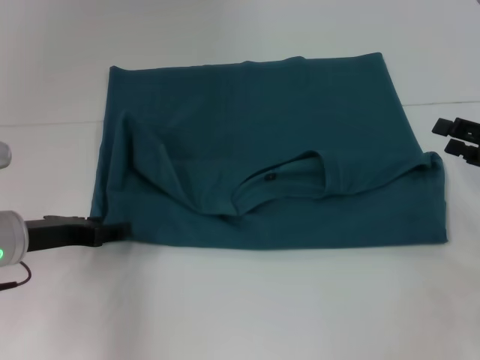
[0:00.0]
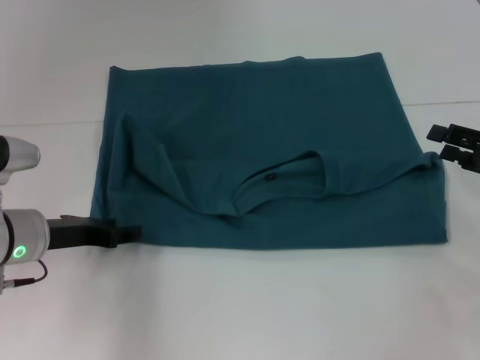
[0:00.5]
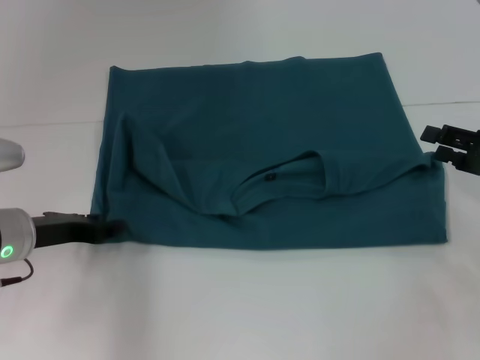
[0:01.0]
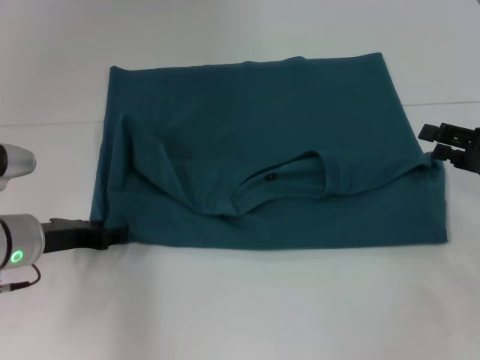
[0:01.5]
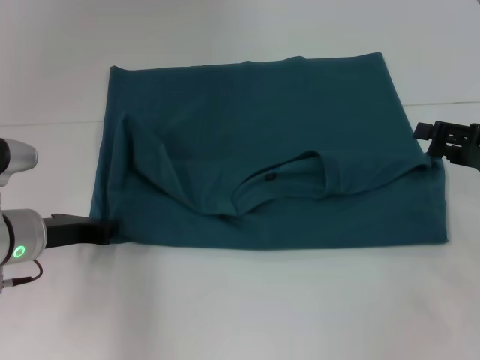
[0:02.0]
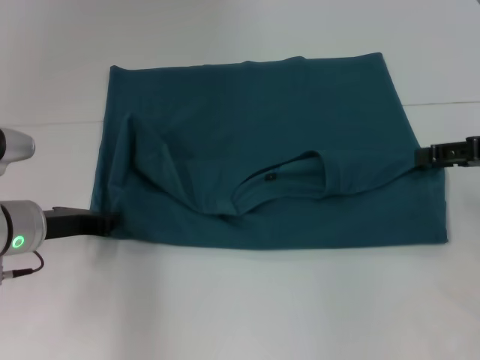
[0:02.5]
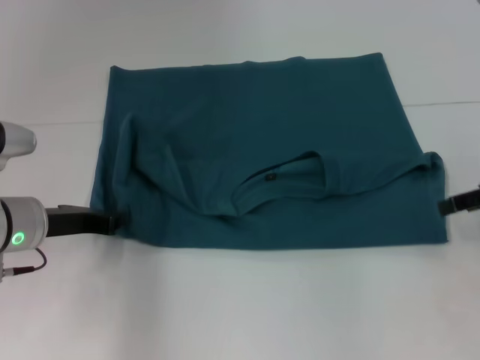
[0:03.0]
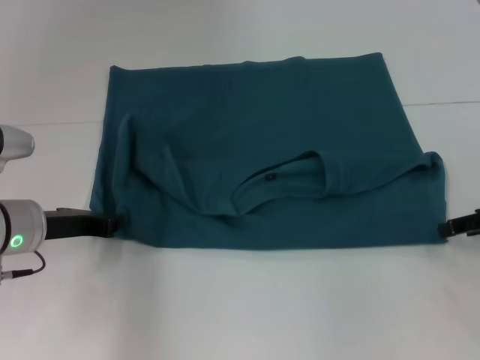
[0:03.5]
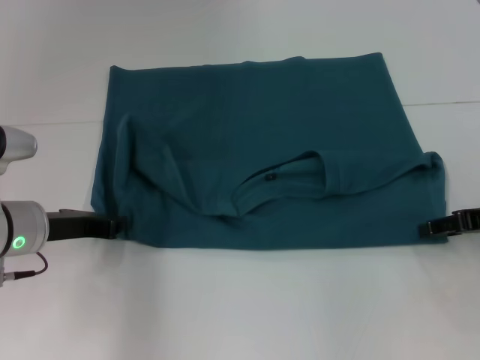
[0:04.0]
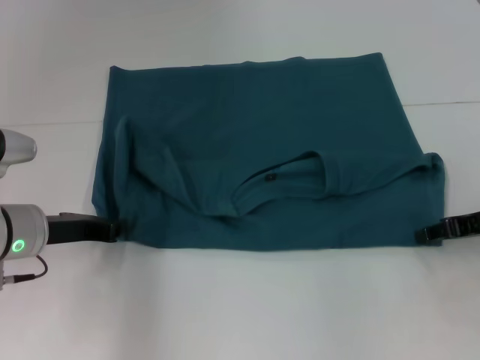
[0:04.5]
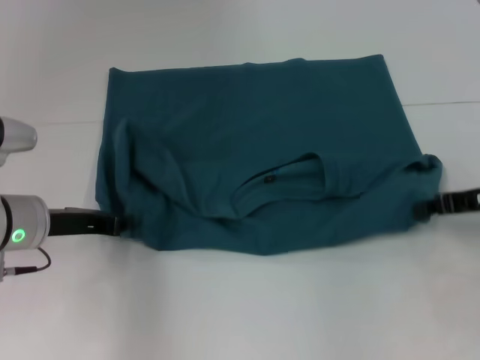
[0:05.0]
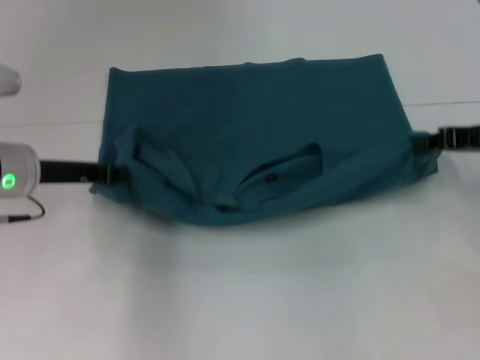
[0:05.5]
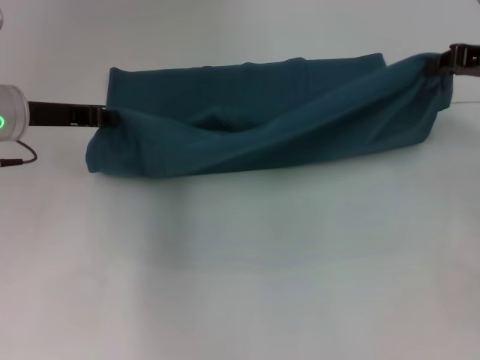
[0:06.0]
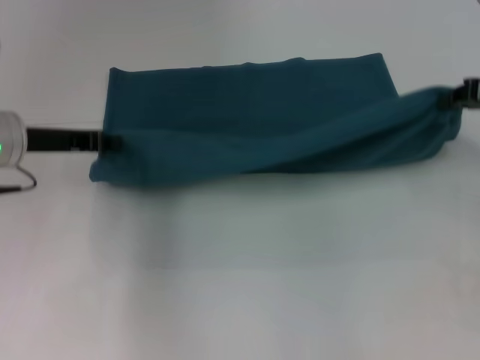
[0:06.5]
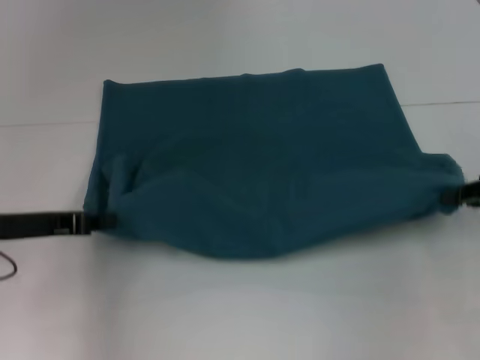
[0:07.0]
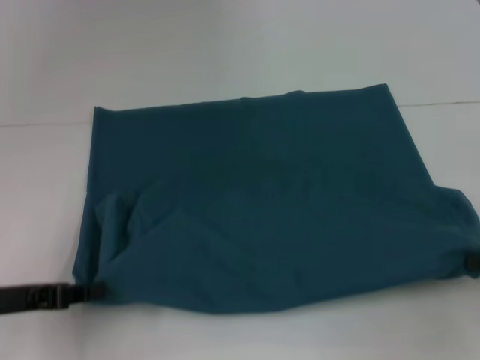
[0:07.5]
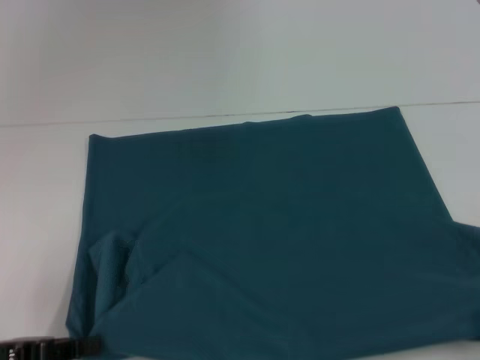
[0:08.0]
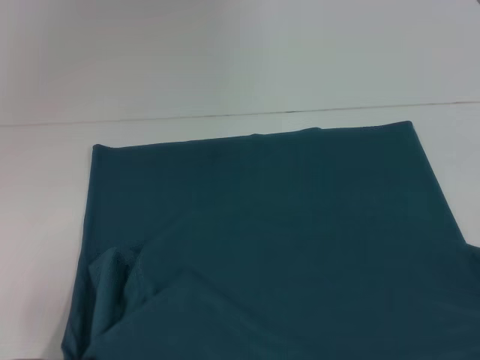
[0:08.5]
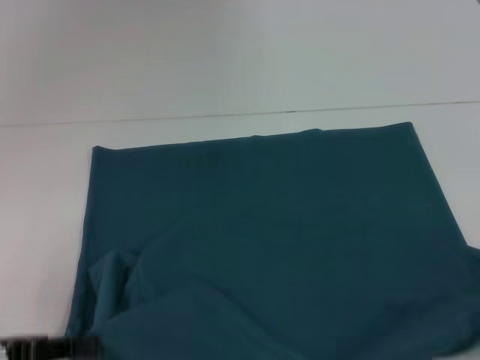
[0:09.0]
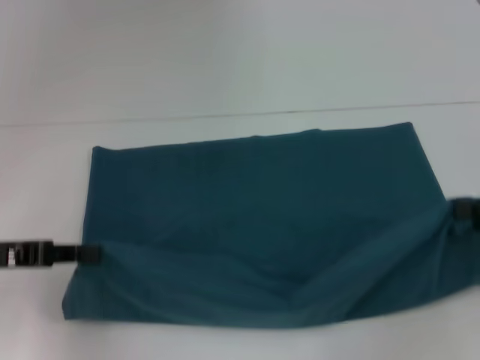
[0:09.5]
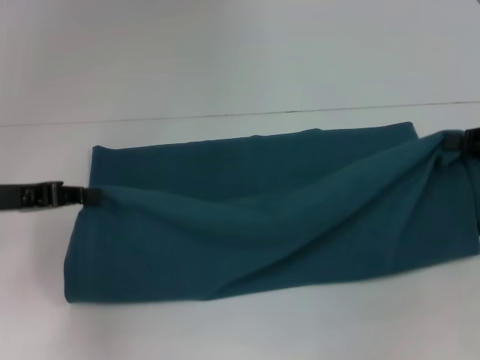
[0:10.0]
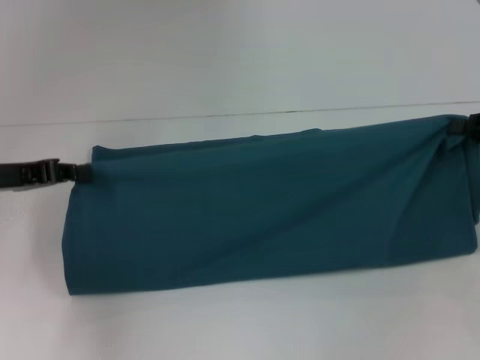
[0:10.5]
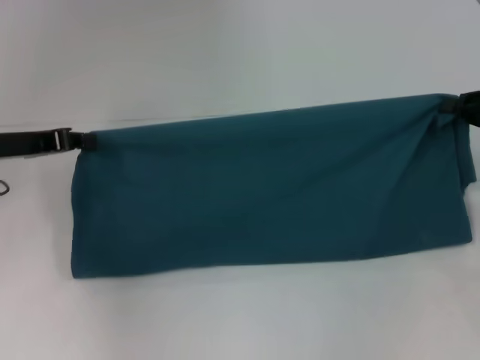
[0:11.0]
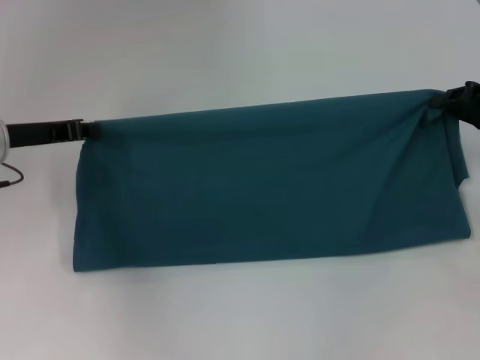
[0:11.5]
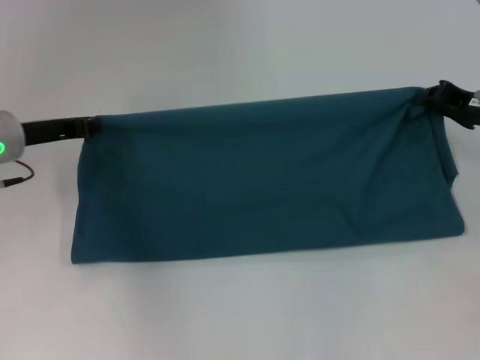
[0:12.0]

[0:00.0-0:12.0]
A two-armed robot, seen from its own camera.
Step, 0.0 to 8.5 s: Pull the clothes with your left hand.
Step, 0.0 to 8.5 s: Pull the clothes with your right hand.
0.0 to 2.0 s: The left gripper closes.
4.0 to 6.0 s: The two grippers go about 10 cm upward and forward. The right gripper closes up.
6.0 to 8.0 s: The grippers both shift backward and downward by some 25 cm.
8.0 to 10.0 s: Both grippers travel together forward and upward, about 15 cm.
10.0 to 12.0 s: Both grippers move forward, approximately 10 cm.

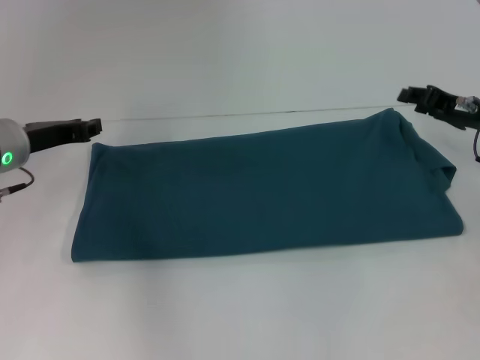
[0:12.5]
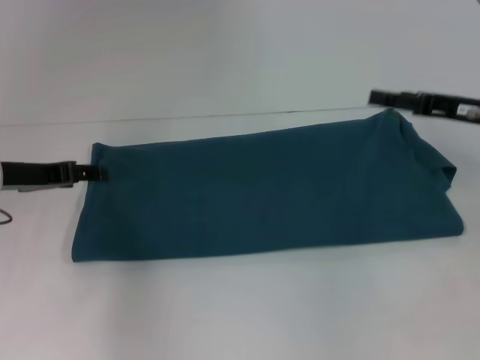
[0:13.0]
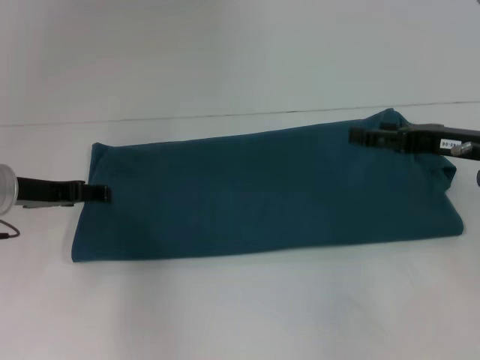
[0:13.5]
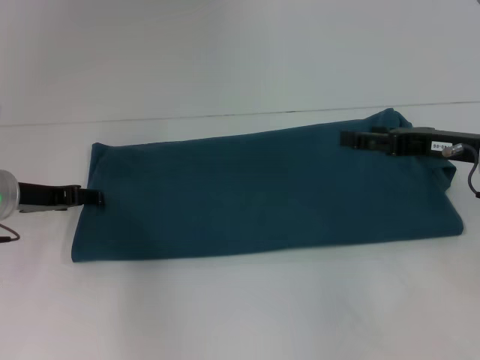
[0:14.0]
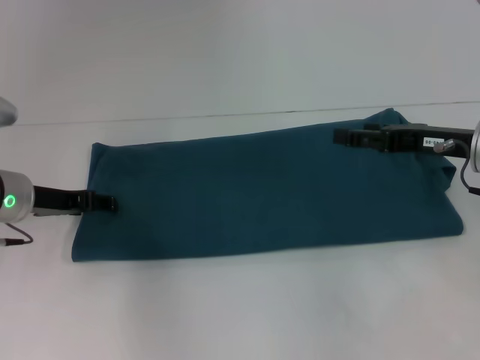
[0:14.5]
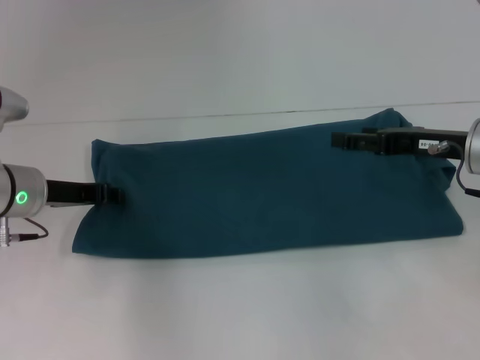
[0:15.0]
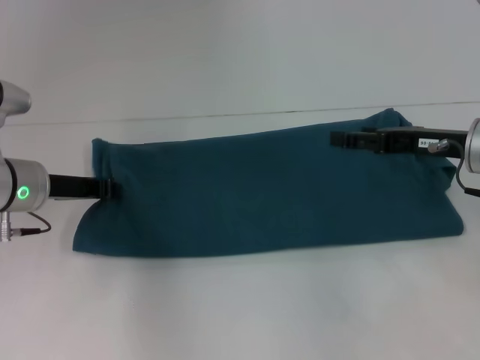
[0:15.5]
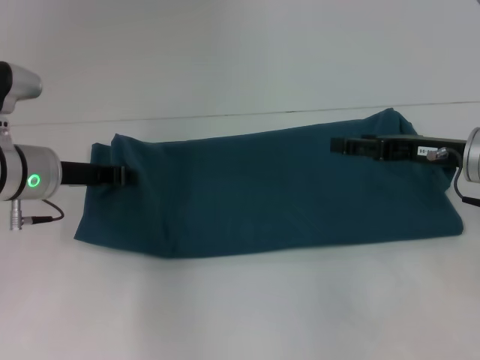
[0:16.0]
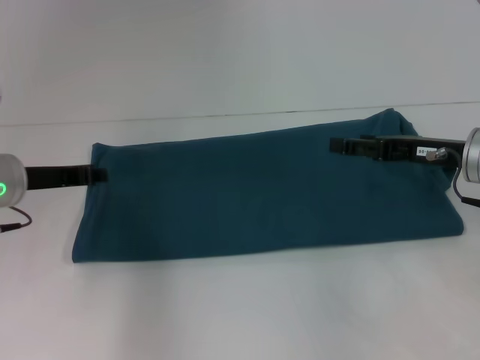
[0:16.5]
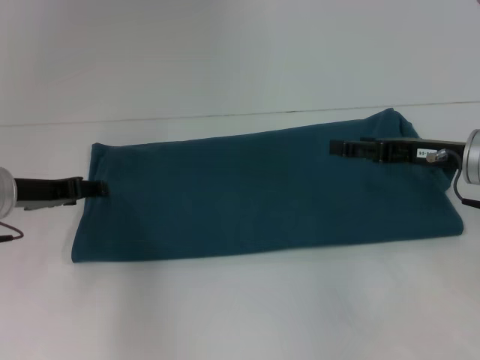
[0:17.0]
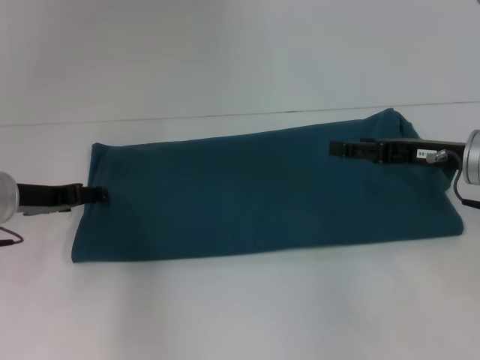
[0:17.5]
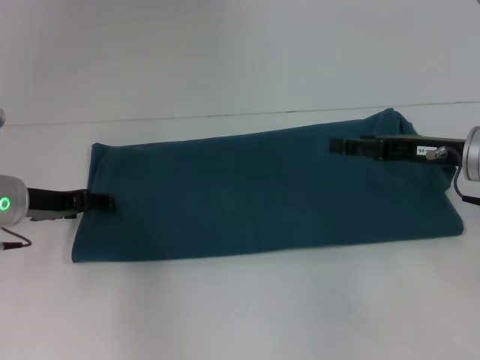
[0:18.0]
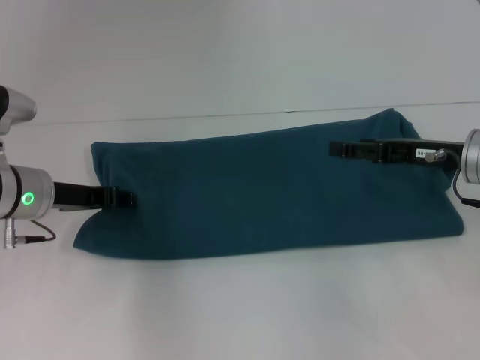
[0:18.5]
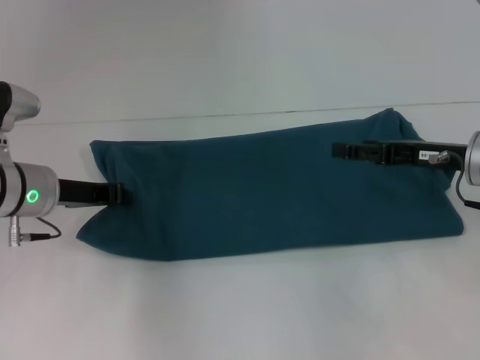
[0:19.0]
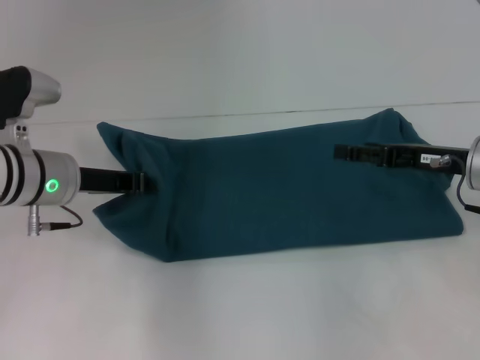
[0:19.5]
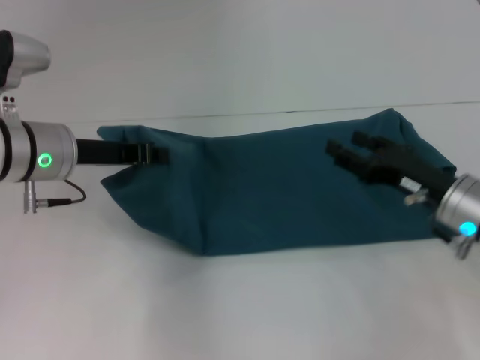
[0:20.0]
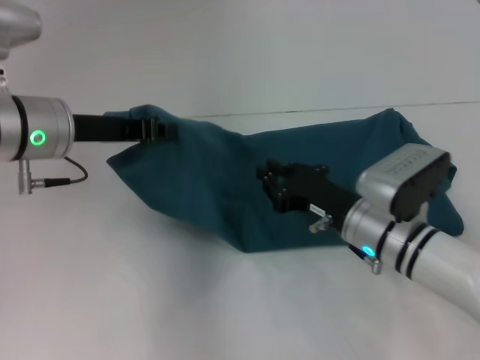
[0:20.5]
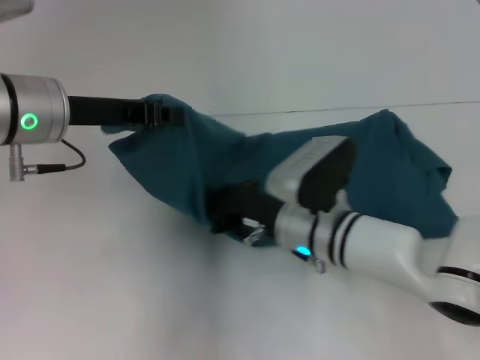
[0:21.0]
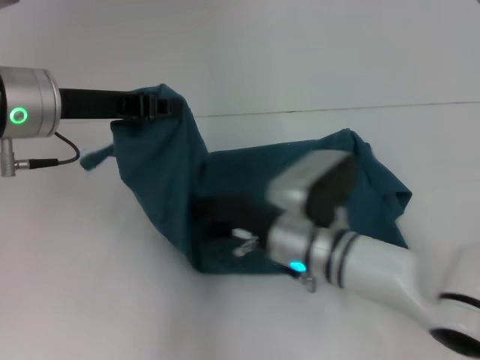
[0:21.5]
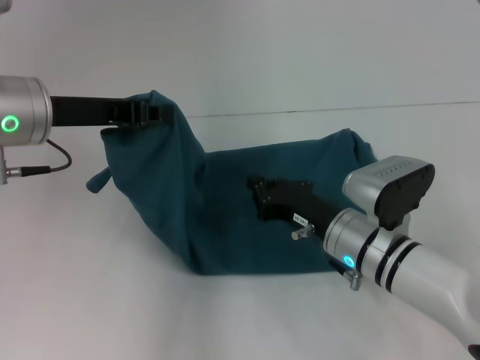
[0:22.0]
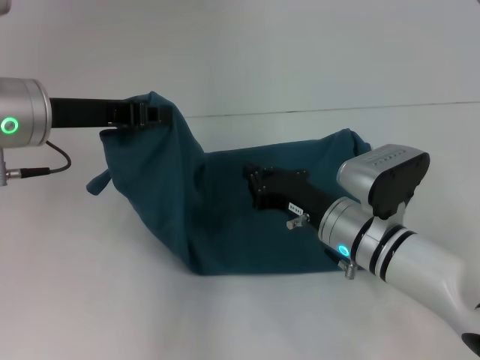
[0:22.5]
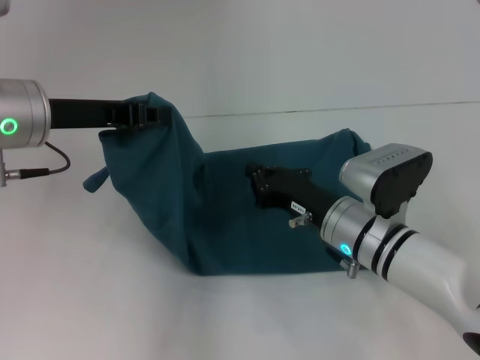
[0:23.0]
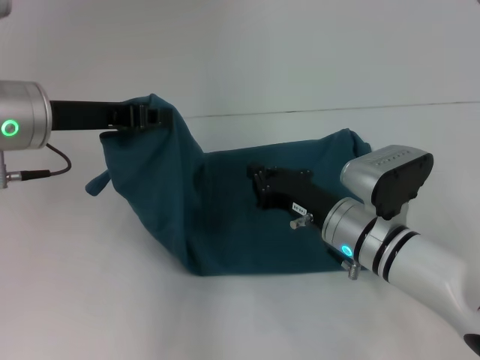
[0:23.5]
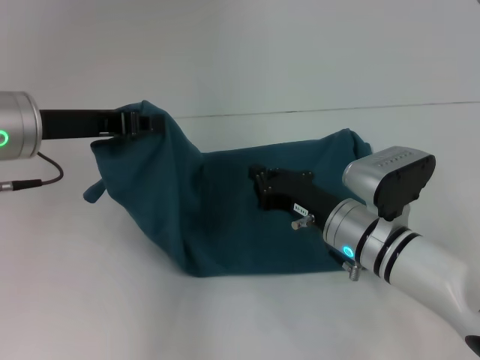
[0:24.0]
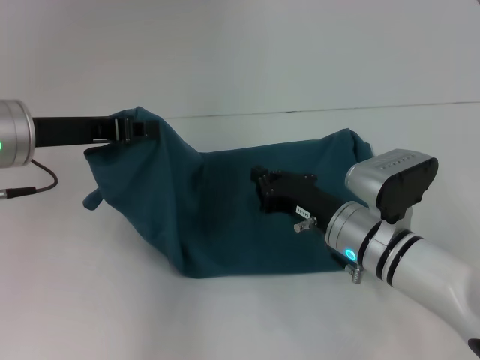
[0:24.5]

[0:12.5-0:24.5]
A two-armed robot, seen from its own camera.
Step, 13.5 to 21.5 s: Press the middle of the clothes with your right hand.
12.5 to 14.5 s: The right gripper changes place by roughly 5 cm, and opens. Meanwhile the left gripper opens its fingers.
14.5 to 16.5 s: The left gripper closes up.
16.5 to 18.5 s: The left gripper opens up.
18.5 to 20.5 s: The right gripper travels to the left and downward by about 15 cm, and closes; the left gripper is displaced upward by approximately 10 cm, and closes.
20.5 to 22.5 s: The right gripper goes to the left and returns, about 10 cm each way, and closes up.
22.5 to 24.5 s: The grippers make only small movements.

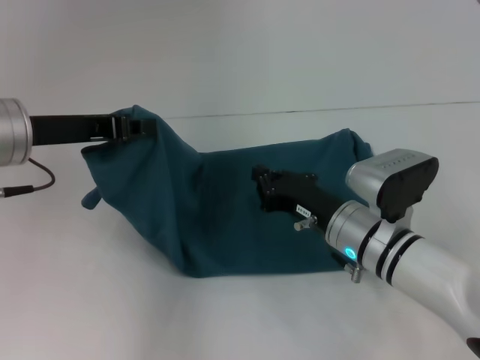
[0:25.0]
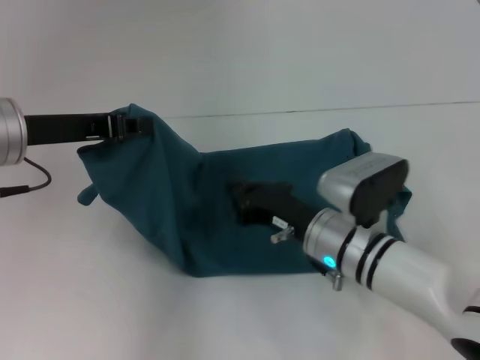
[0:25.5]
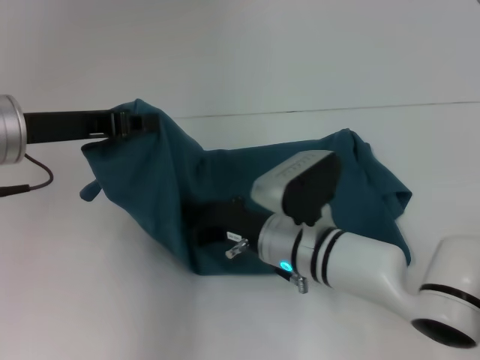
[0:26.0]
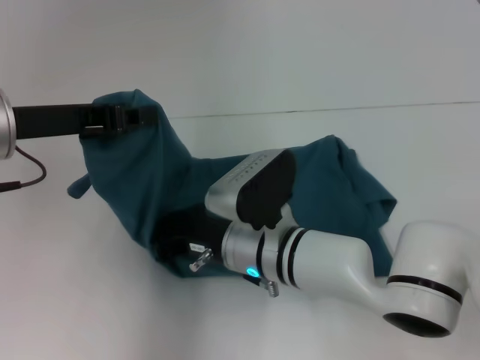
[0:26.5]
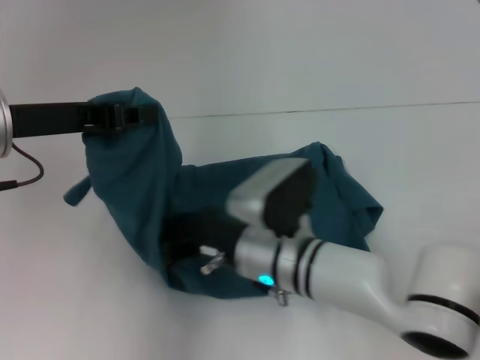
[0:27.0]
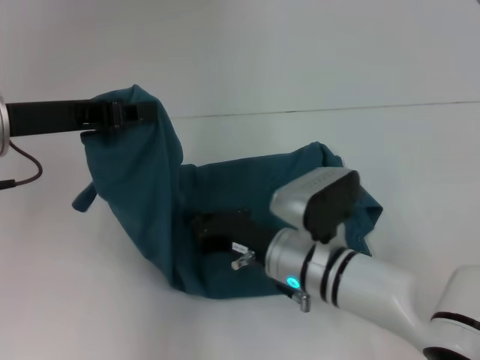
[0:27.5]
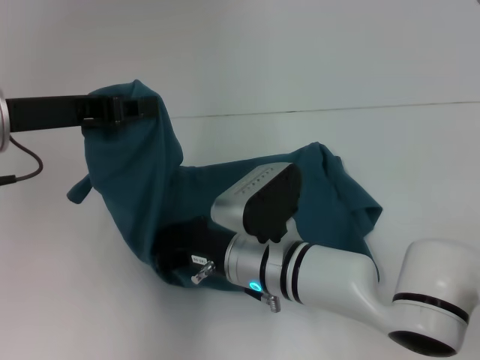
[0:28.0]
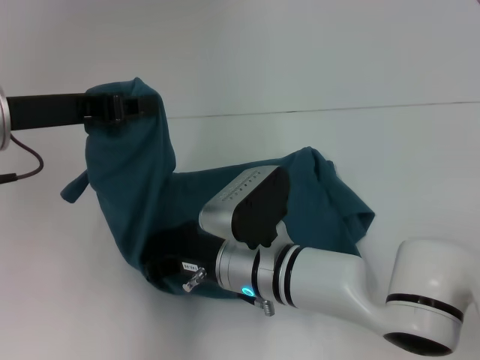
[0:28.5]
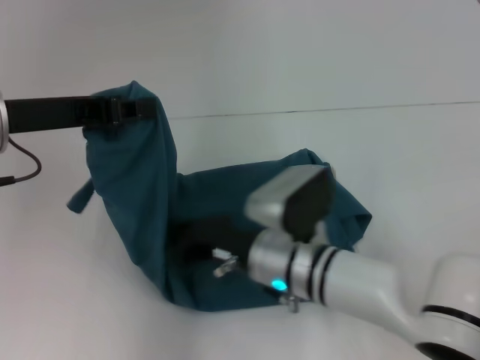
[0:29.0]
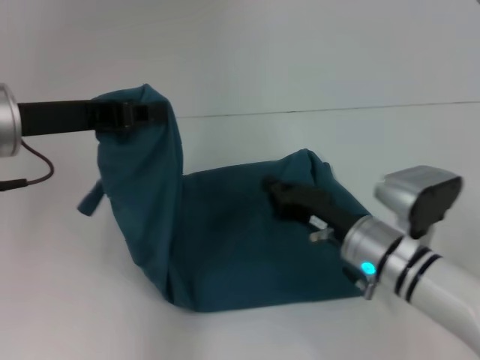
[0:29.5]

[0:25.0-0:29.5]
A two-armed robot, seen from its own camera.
25.0 to 27.0 s: The right gripper moves to the left, some 10 cm.
27.0 to 29.5 s: The right gripper shifts some 10 cm to the right.
